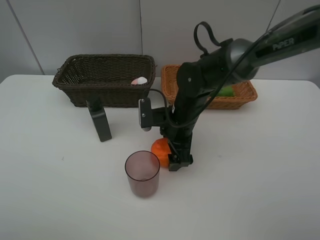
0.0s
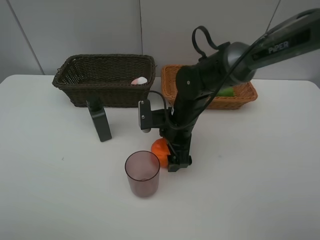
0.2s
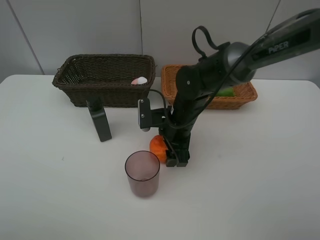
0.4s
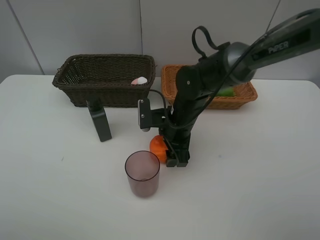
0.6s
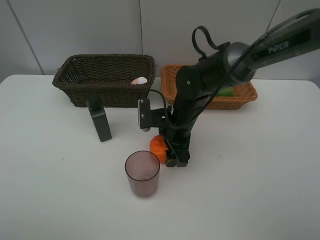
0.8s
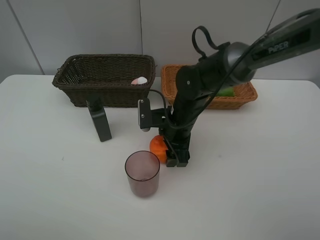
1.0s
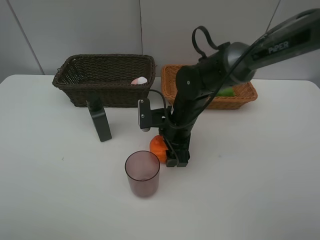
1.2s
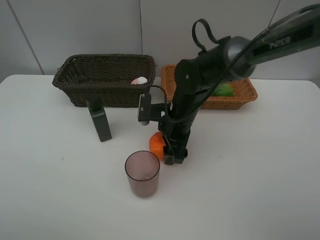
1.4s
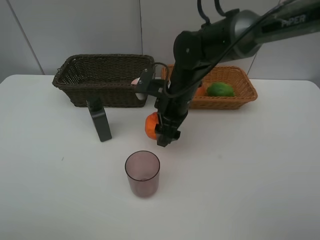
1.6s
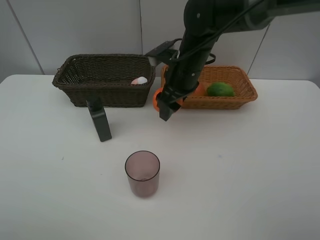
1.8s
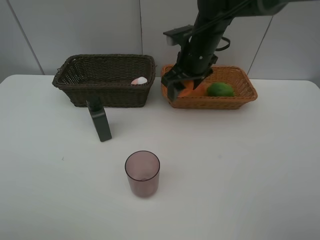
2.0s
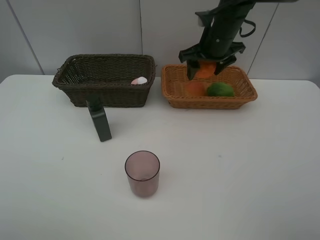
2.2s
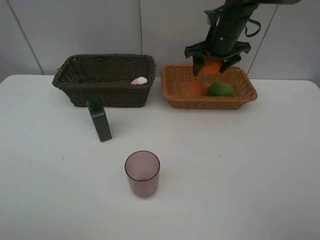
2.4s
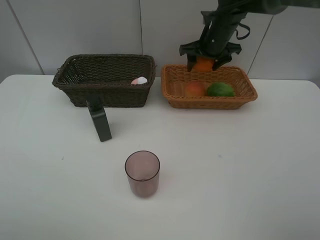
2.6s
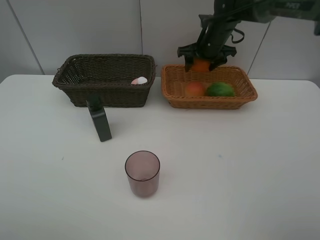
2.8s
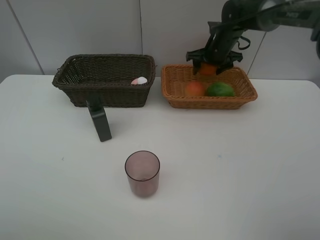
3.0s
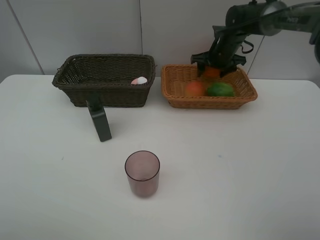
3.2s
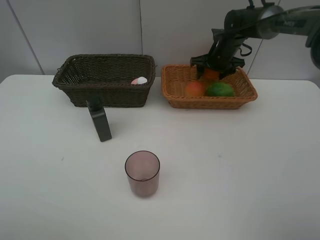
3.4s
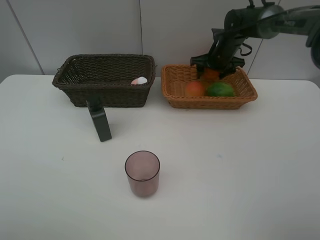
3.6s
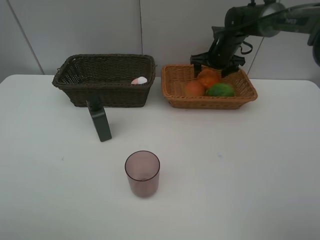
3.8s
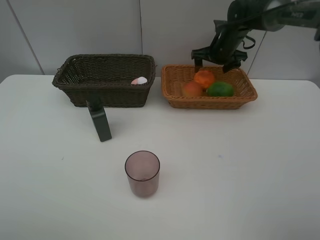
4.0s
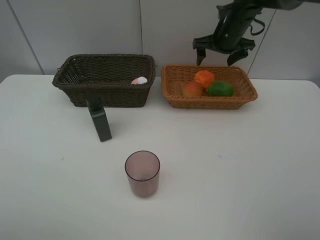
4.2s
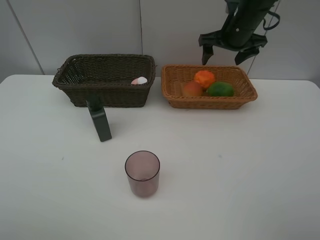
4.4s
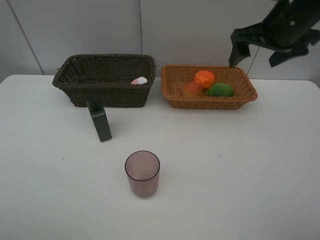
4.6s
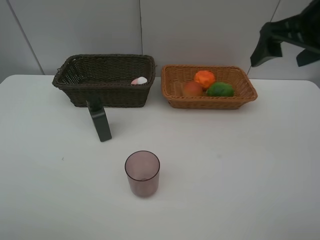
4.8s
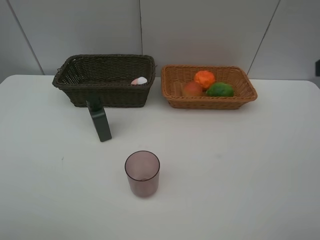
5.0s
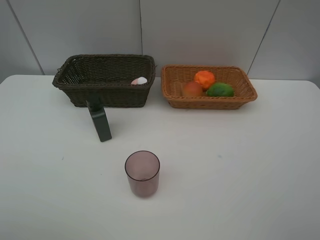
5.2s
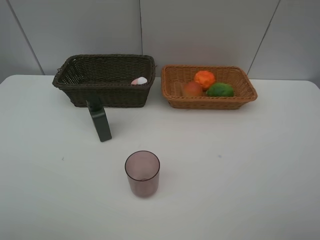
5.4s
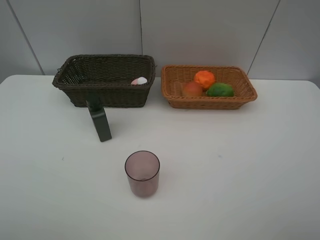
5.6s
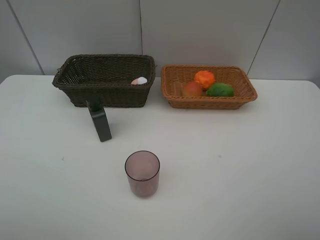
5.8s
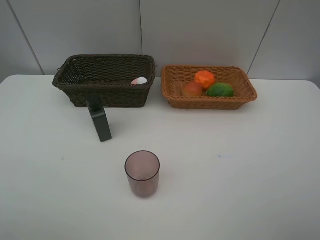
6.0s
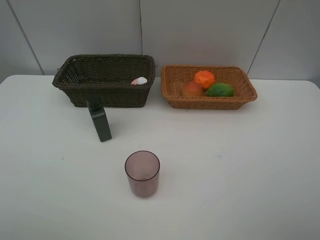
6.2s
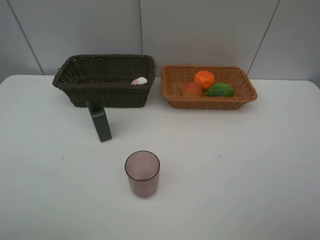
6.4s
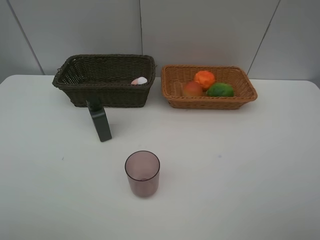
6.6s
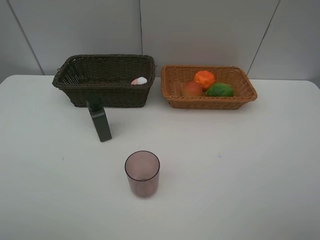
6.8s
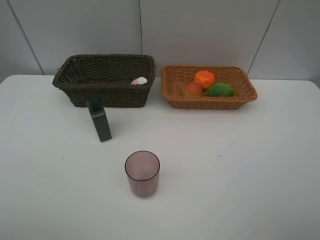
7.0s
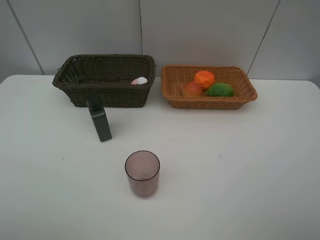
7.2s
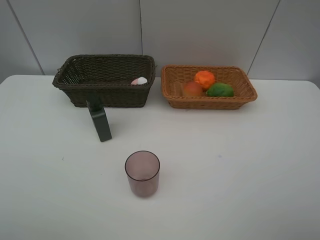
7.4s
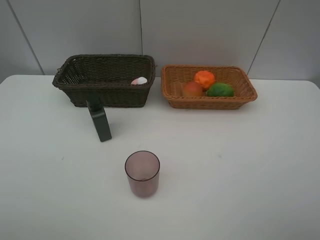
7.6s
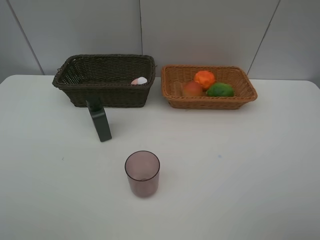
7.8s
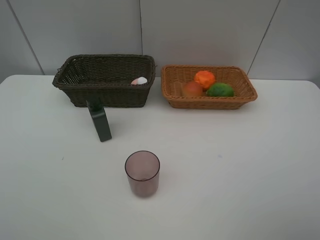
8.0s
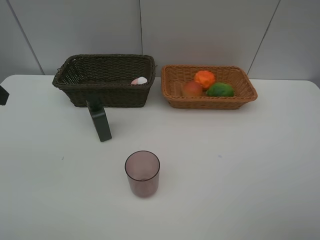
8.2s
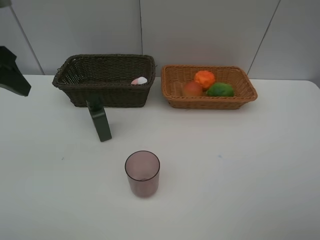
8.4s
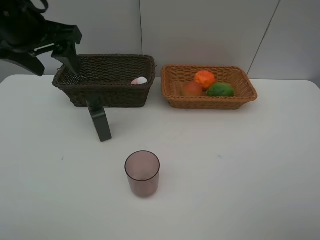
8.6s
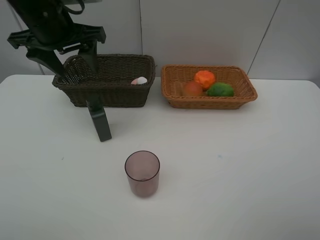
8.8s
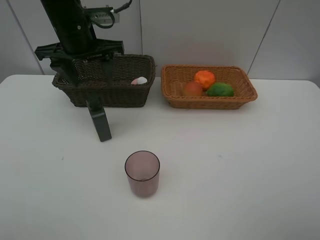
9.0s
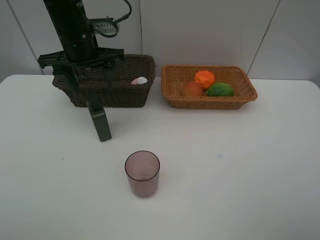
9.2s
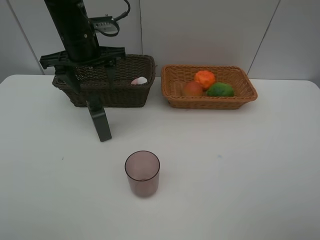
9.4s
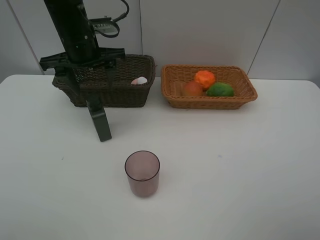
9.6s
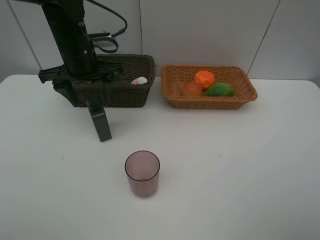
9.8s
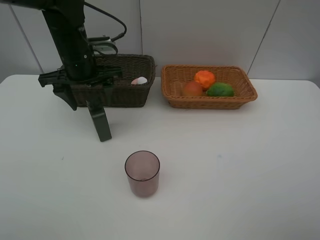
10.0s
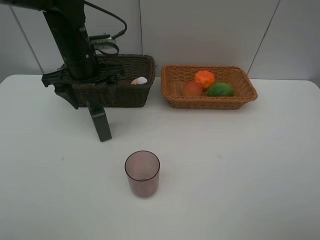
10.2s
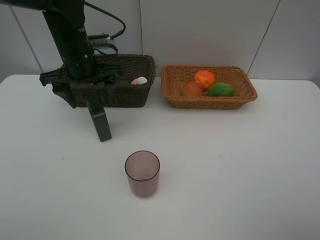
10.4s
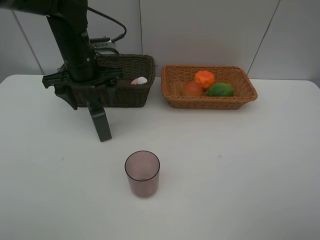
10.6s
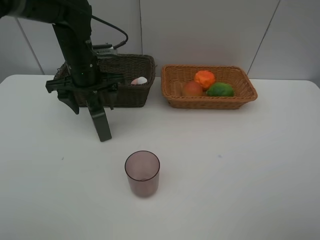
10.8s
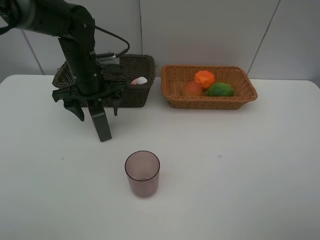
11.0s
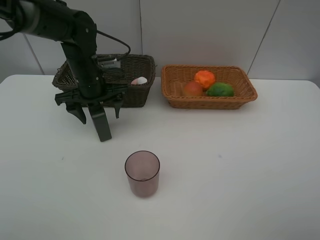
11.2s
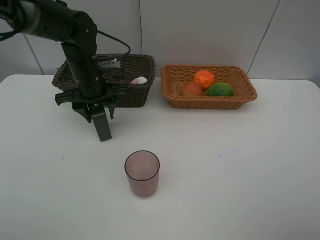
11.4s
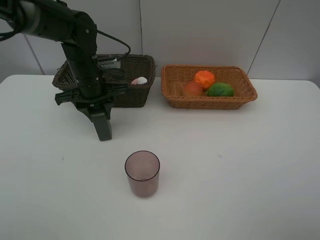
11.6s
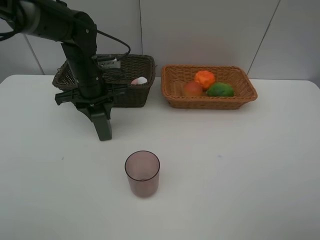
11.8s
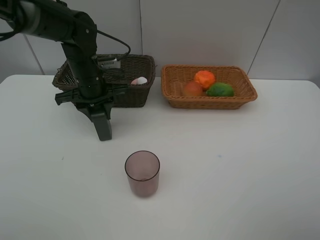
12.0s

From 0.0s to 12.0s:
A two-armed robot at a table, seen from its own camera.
Task of the whole recording: place multiple objects separately in different baskets.
Step, from 1.8s to 4.4s: Place the orange in the light basket with right gripper.
From 0.0s to 1.6s: The right gripper travels upward by roughly 5 cm.
From 1.6s to 3.0s: The right gripper is displaced forward and to the right by roughly 20 cm.
From 3.0s to 4.4s: The right gripper shifts roughly 10 cm backward and upward.
From 4.4s to 6.0s: The right gripper travels backward by some 40 cm.
From 7.6s to 9.0s: The left gripper moves forward and to the right, some 35 cm.
From 9.0s to 10.4s: The grippers move only a little.
From 10.4s to 12.0s: The left gripper goes approximately 5 cm downward, and closes.

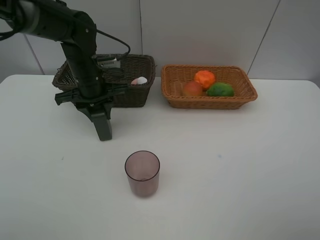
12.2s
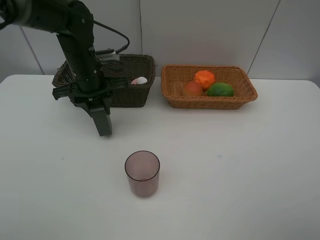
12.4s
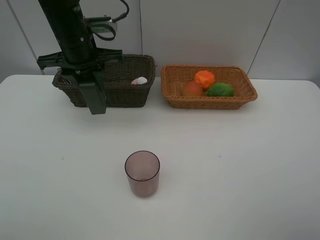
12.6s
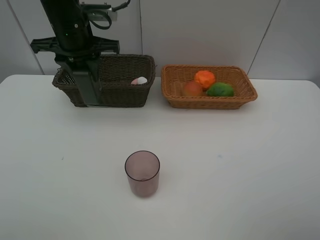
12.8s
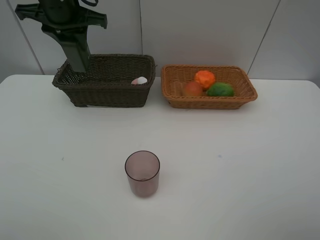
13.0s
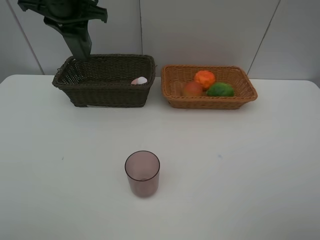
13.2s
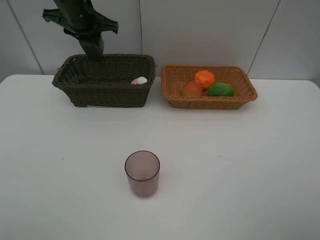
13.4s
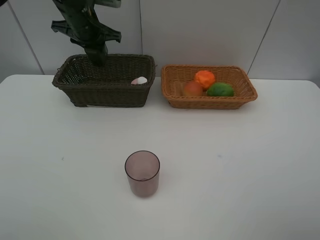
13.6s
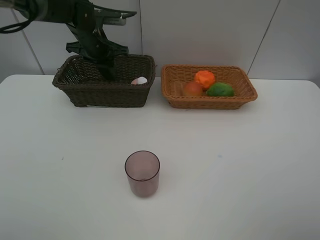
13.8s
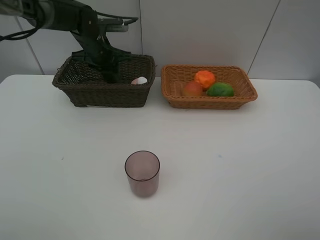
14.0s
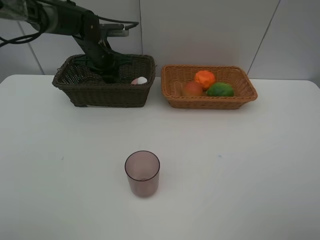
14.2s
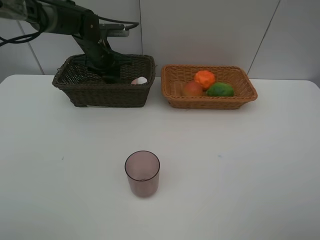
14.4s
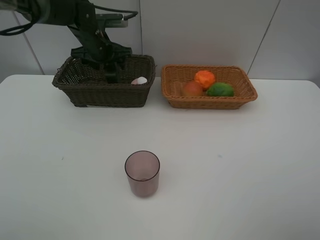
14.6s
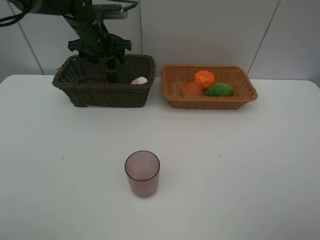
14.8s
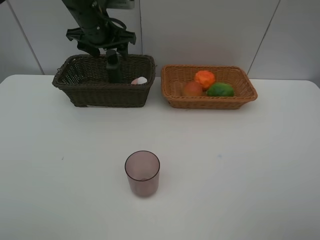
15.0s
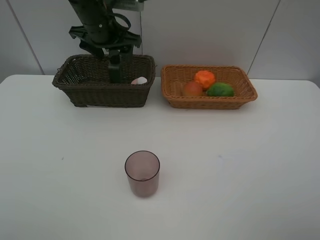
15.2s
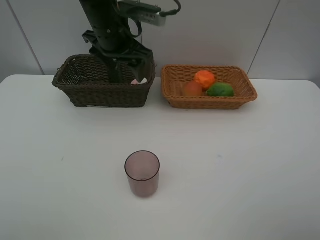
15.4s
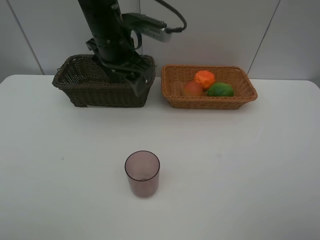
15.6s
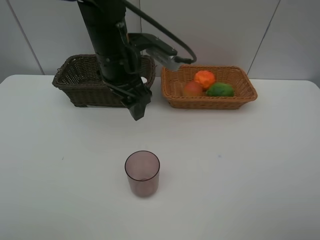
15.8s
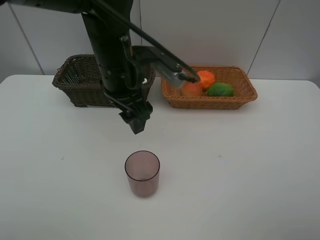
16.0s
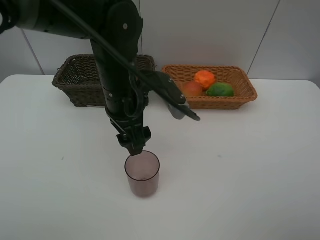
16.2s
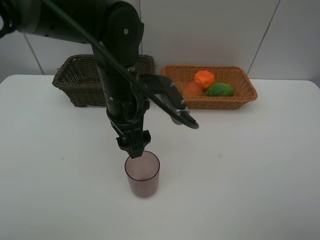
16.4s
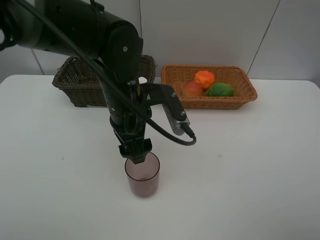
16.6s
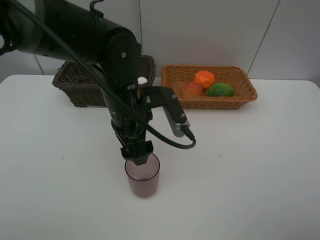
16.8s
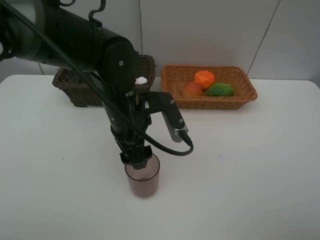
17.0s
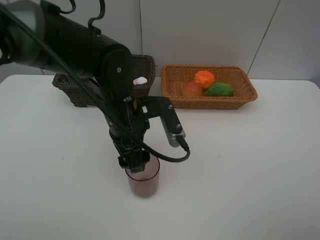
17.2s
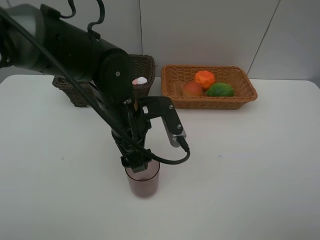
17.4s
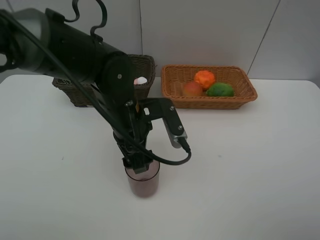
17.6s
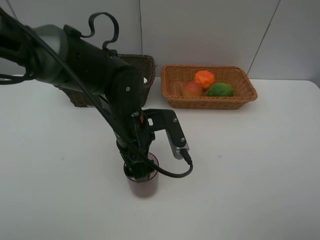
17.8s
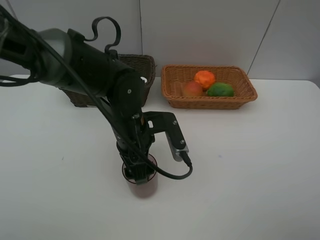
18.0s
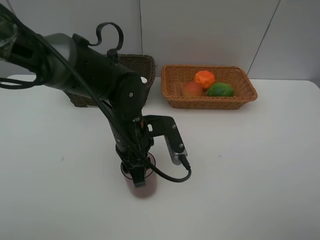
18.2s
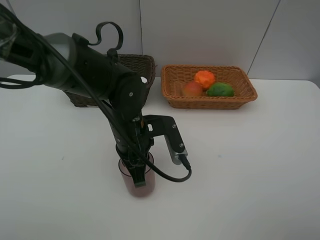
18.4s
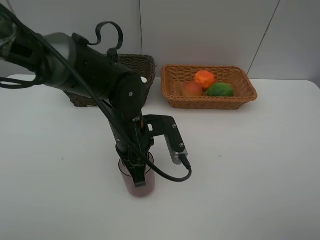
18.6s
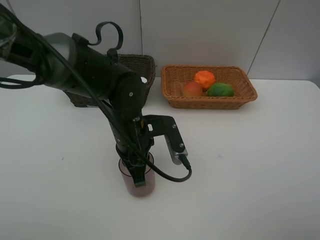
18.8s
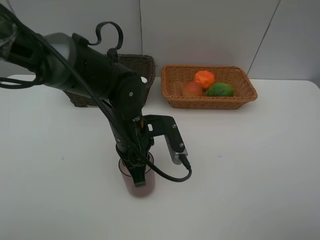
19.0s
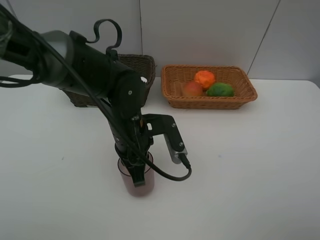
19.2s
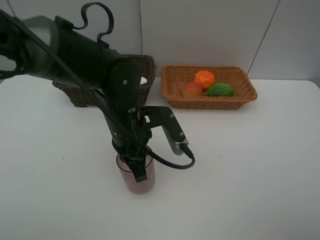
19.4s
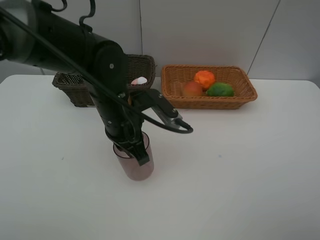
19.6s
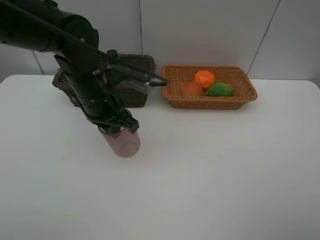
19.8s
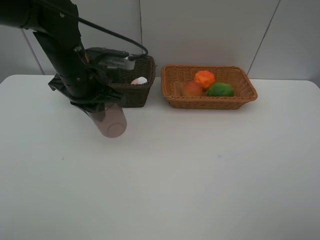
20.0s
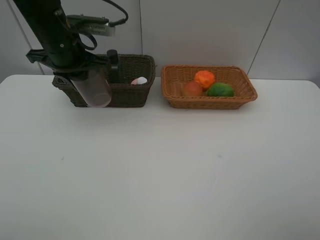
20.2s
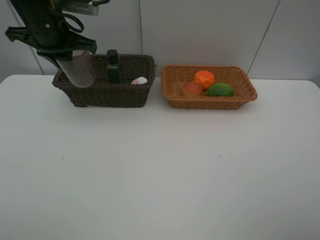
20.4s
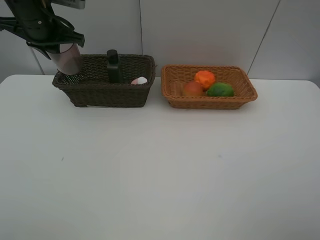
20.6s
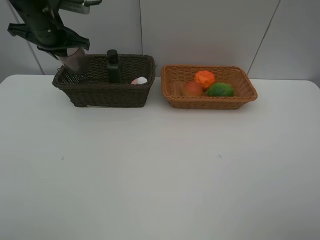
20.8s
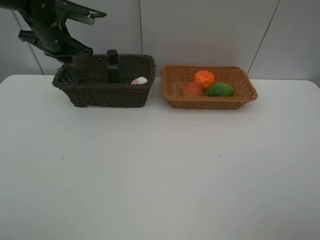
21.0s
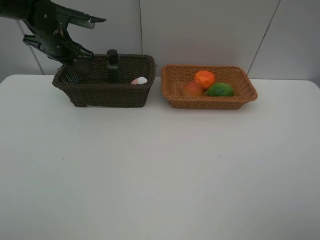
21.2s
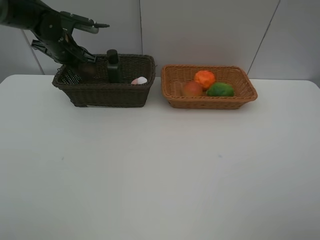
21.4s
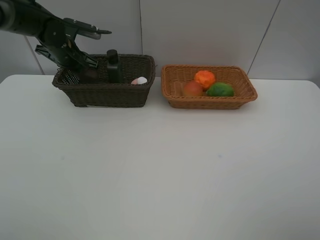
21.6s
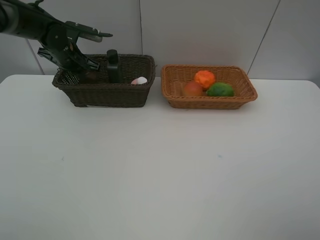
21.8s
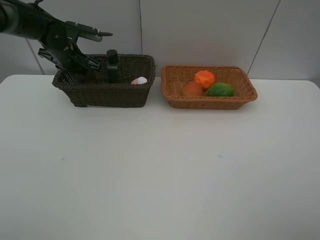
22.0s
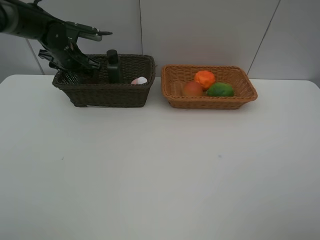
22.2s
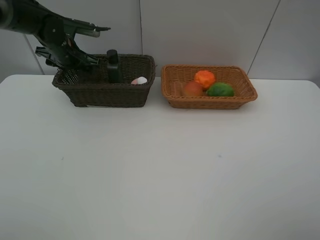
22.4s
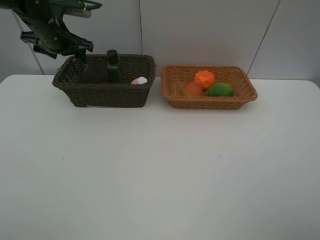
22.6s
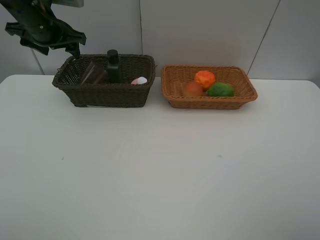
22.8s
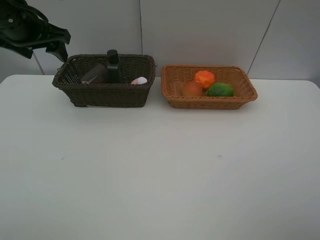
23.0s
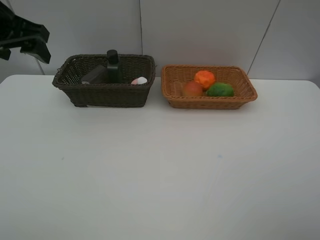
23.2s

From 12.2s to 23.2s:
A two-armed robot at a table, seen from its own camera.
Task of the whole recording: place multiple objects separately in different baskets.
Step, from 12.6s to 15.4s: Place the facial cleanser in the dark basket with left gripper.
Step, from 15.6s to 19.6s: Pick up the brown cup with left gripper.
Step, from 19.8s to 22.8s: Place the brown cup in the dark basket with left gripper.
From 12.2s to 13.8s: The left gripper moves forward, approximately 10 cm, and moves about 15 cm upward and comes back.
From 13.8s to 15.4s: The left gripper moves backward, upward and to the right, roughly 15 cm, and opens.
From 15.4s to 17.0s: The left gripper shifts roughly 15 cm backward and downward.
From 17.0s to 18.4s: The left gripper closes.
From 18.4s to 20.0s: The left gripper moves to the left, upward and forward, about 15 cm.
From 20.0s to 21.6s: The left gripper shifts approximately 15 cm forward and to the left.
From 21.6s to 23.2s: The left gripper shifts roughly 25 cm backward and upward, and opens up.
